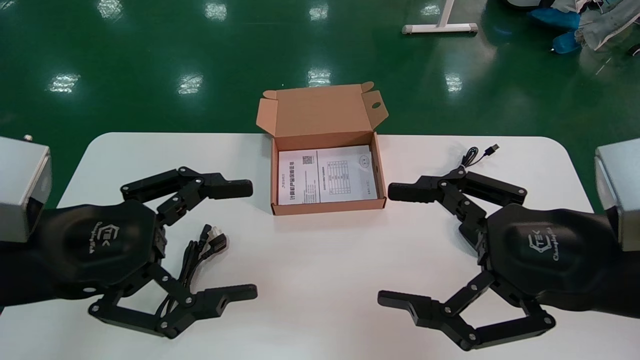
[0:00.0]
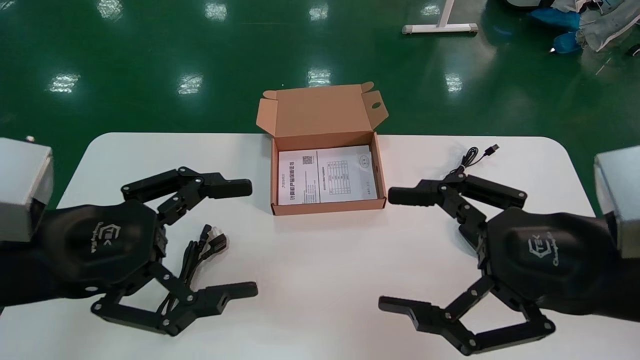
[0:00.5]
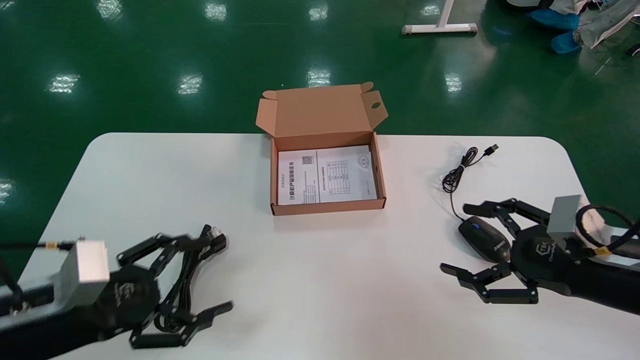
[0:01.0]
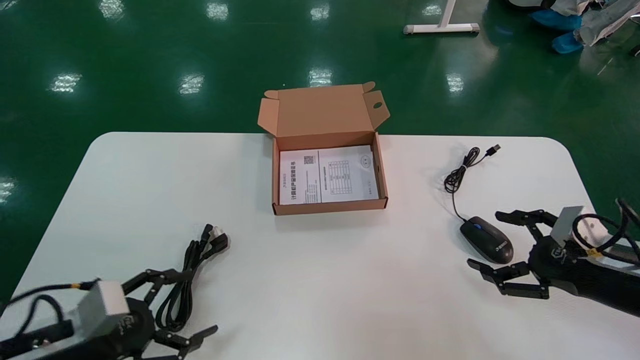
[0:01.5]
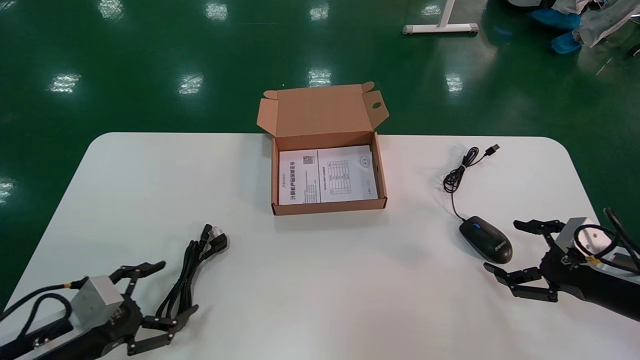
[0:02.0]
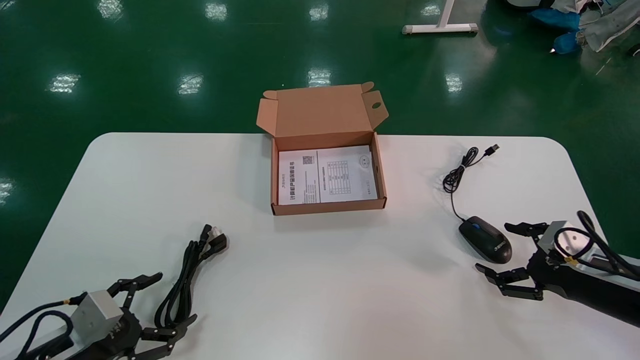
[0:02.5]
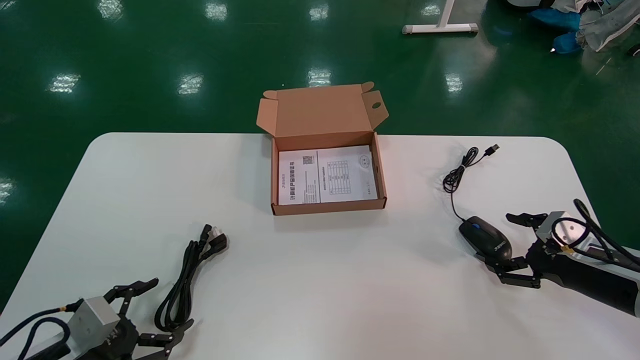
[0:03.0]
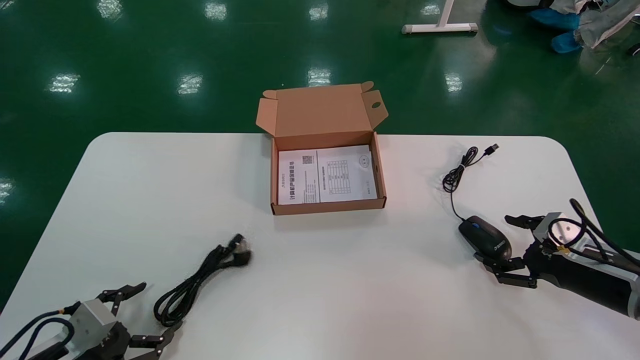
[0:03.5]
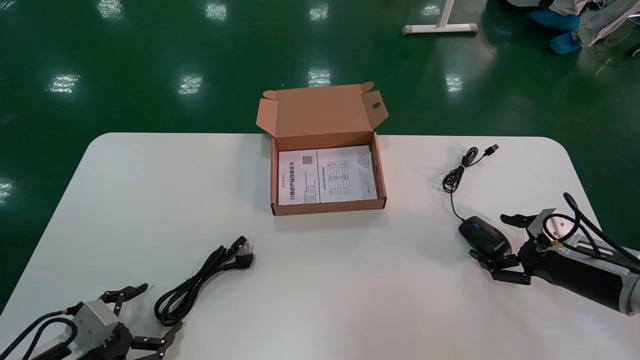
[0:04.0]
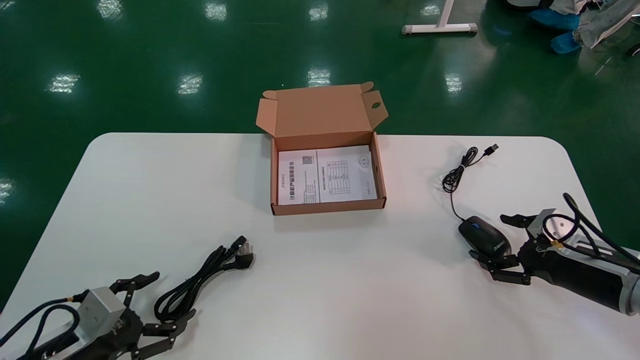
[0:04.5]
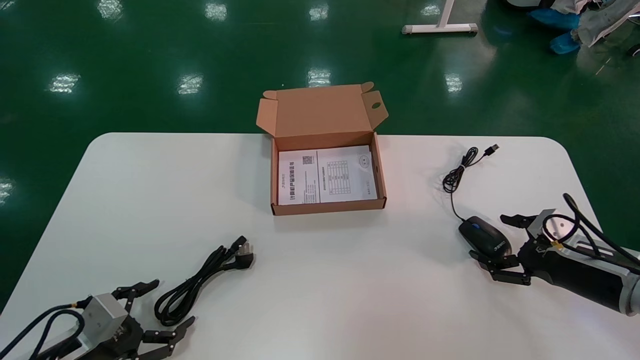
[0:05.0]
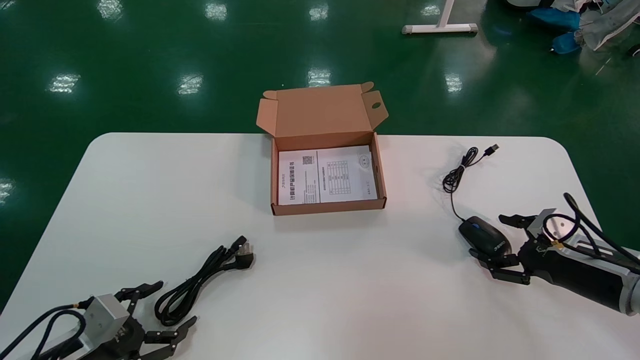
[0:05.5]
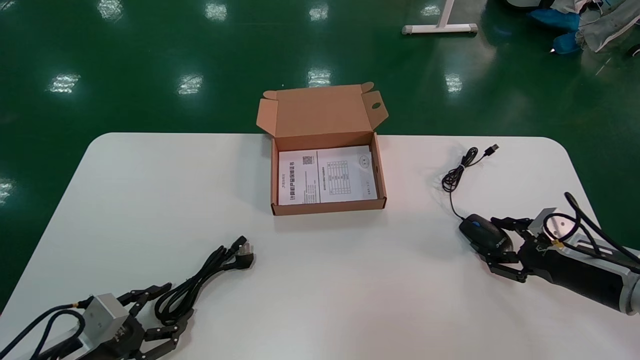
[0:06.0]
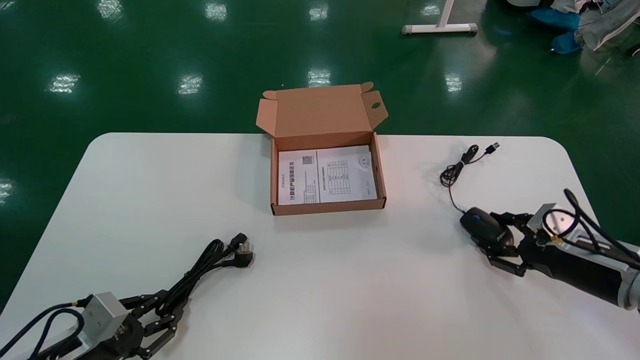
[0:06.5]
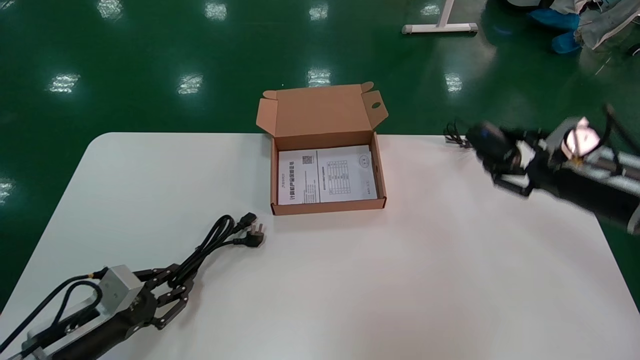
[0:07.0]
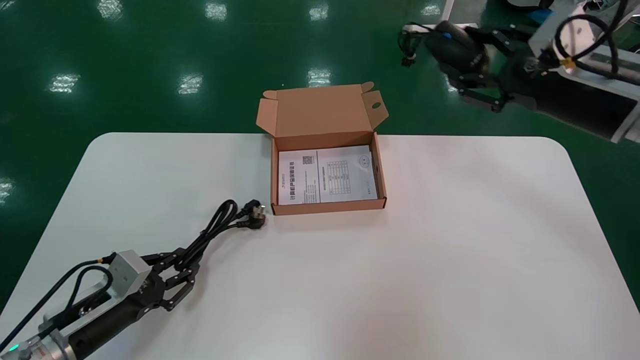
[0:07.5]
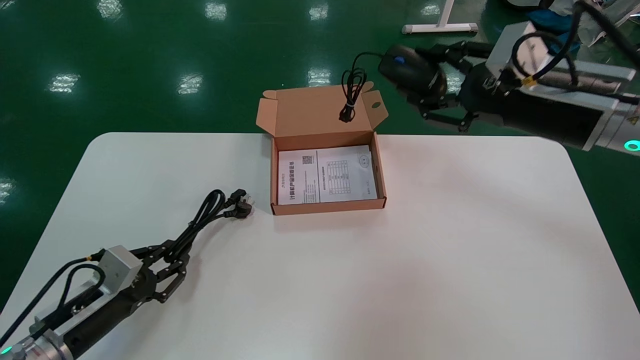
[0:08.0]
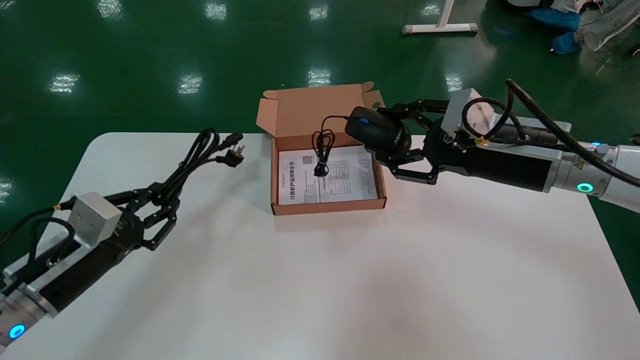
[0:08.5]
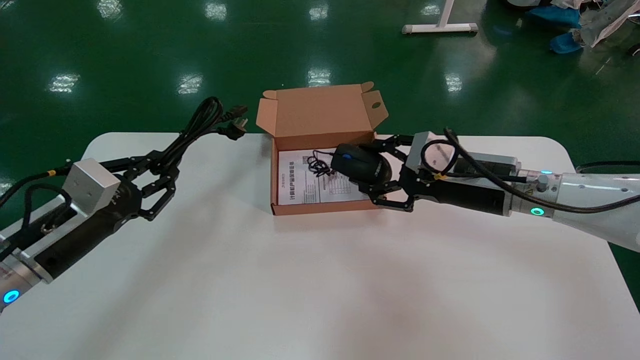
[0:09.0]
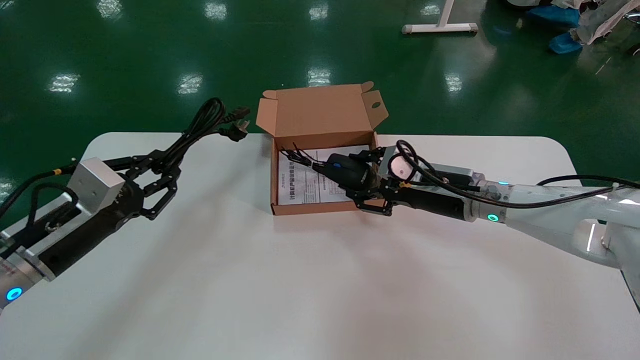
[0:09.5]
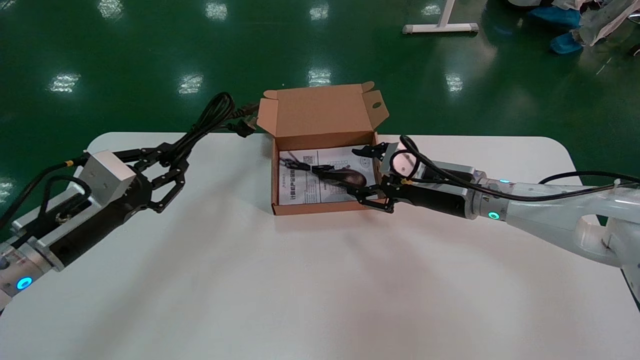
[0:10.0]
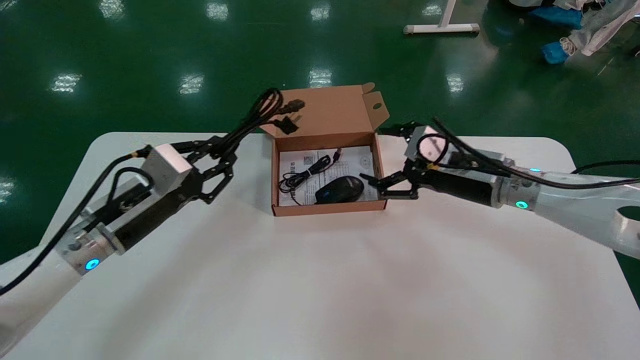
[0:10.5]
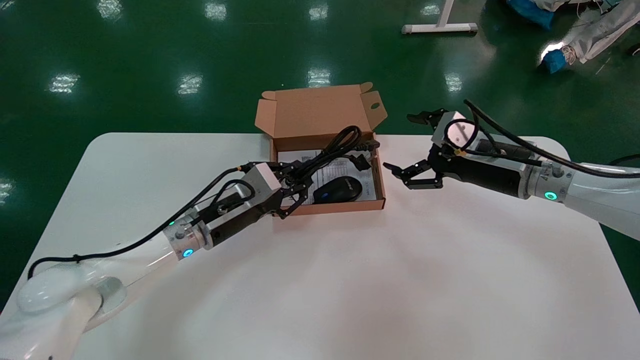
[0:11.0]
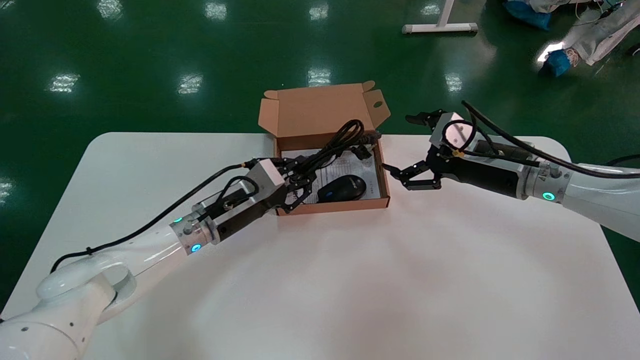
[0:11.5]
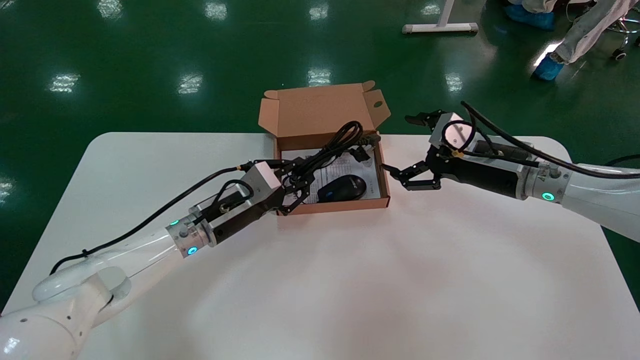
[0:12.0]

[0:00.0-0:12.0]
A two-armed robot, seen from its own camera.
Step, 0:01.0 to 0:06.5: Grab and pick up the mouse and power cord from the accessory packaging area.
0:00.0 to 0:02.0: The right gripper travels to the right, downward and forward by approximately 25 cm; the left gripper shifts approximately 25 cm downward and to the left.
0:02.0 to 0:04.0: The right gripper shifts by about 5 cm, while the left gripper shifts by some 5 cm.
0:04.0 to 0:06.0: The right gripper closes its fingers.
0:06.0 to 0:08.0: The right gripper heads upward and to the left, covering about 25 cm, and closes up. Meanwhile the left gripper moves roughly 5 cm, and closes its fingers.
0:08.0 to 0:10.0: The right gripper is displaced downward, to the left and forward by roughly 15 cm. The left gripper moves upward, about 15 cm.
0:10.0 to 0:12.0: The left gripper shifts roughly 20 cm to the right and forward. The right gripper goes approximately 5 cm to the right, and opens its fingers.

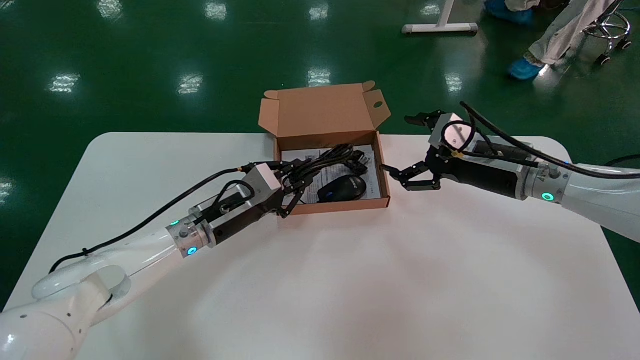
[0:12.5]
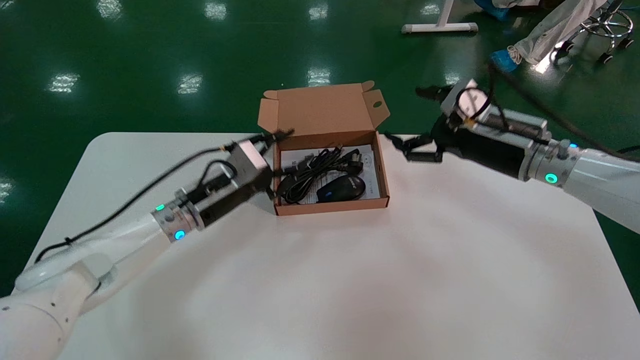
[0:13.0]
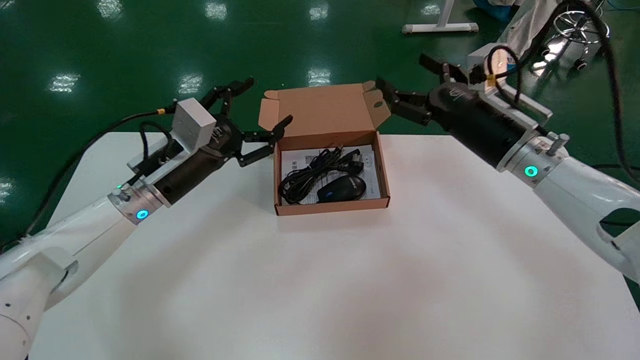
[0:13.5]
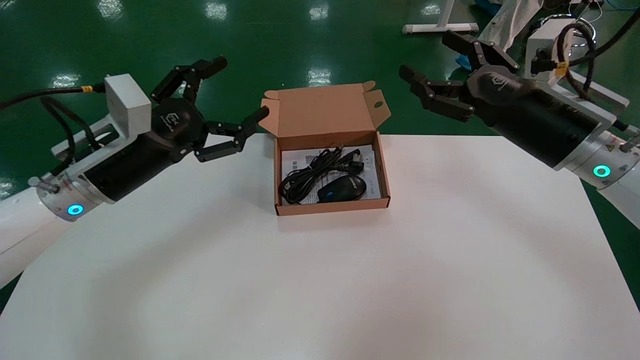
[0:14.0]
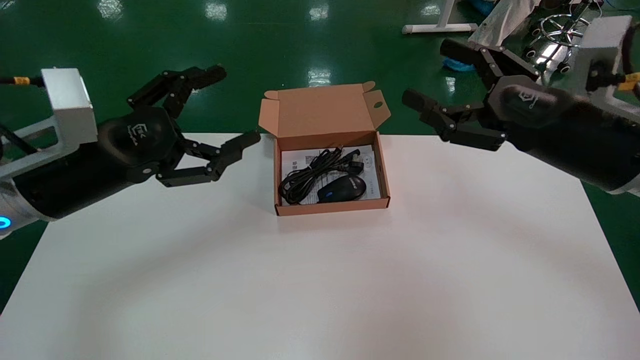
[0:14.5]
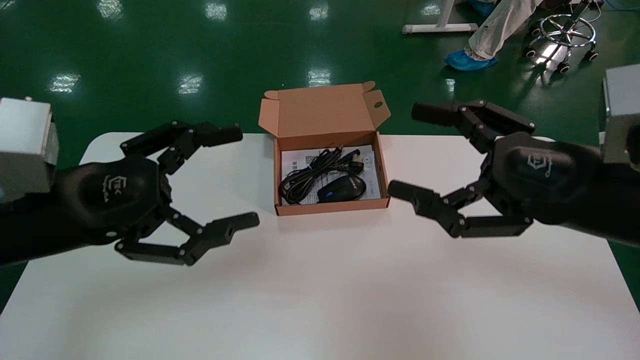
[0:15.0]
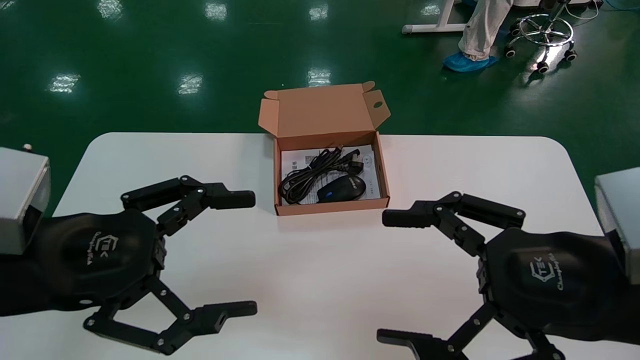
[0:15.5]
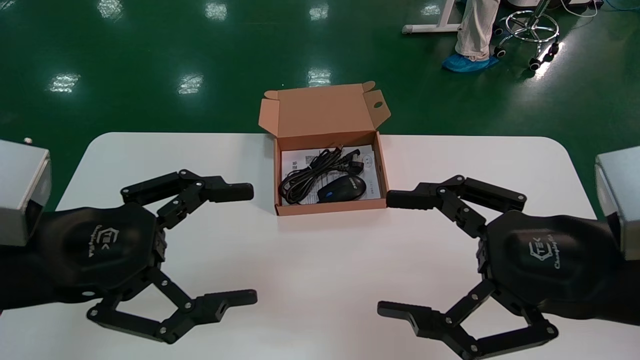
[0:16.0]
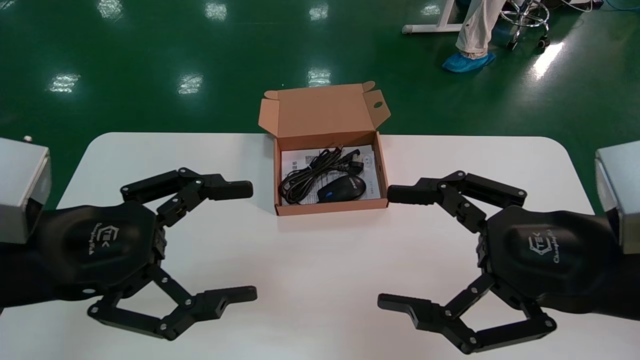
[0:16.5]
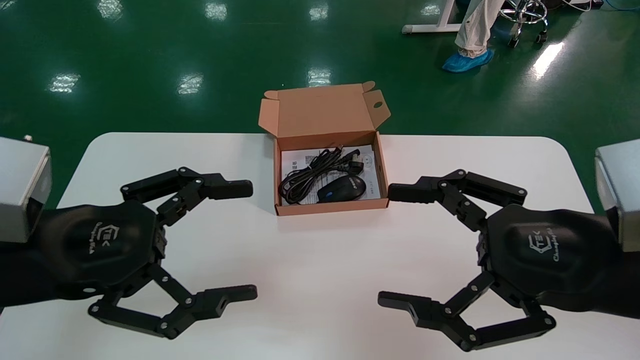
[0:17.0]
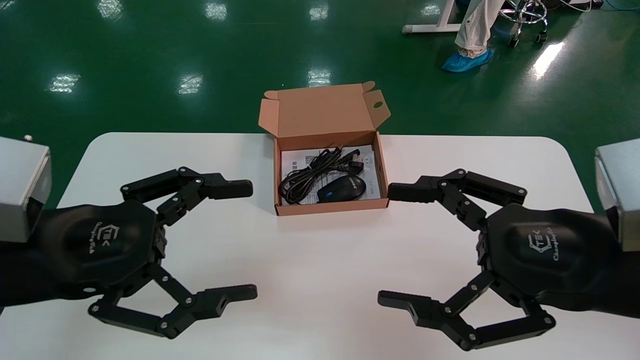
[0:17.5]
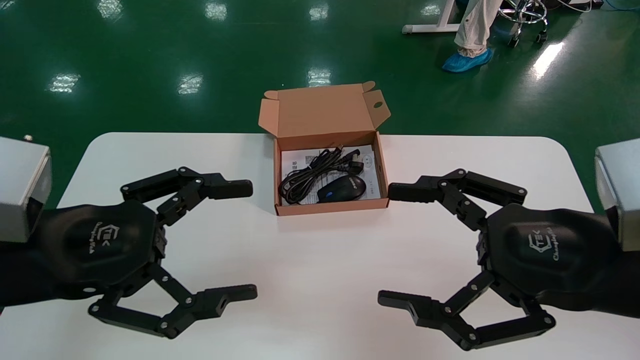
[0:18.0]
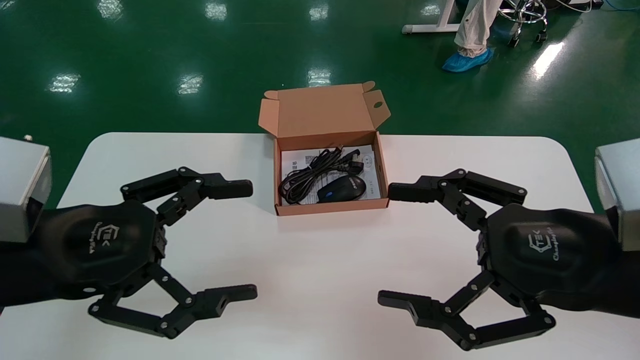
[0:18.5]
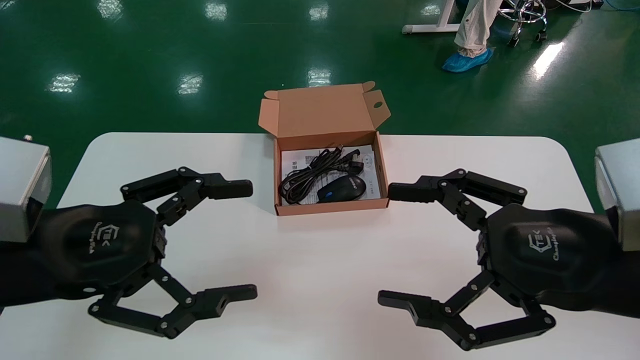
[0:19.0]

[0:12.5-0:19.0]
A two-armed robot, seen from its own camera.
0:12.5 to 0:14.5: The left gripper shifts about 20 cm backward, upward and to the left, and opens. The right gripper heads backward and upward, covering about 10 cm.
0:14.5 to 0:17.0: The two grippers go approximately 10 cm backward.
0:17.0 to 0:19.0: Both grippers stay put.
